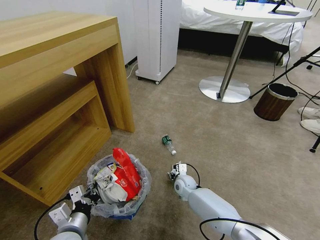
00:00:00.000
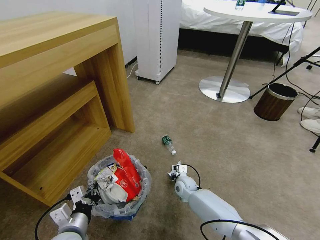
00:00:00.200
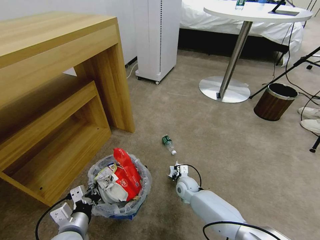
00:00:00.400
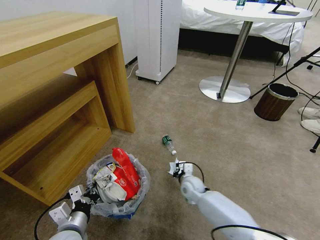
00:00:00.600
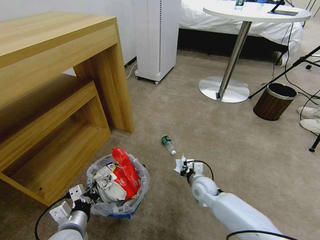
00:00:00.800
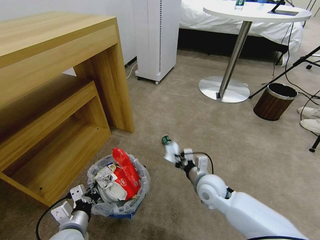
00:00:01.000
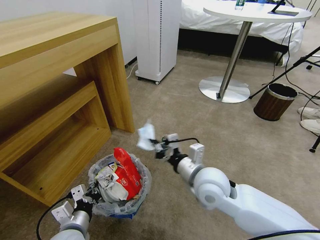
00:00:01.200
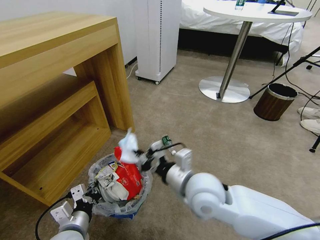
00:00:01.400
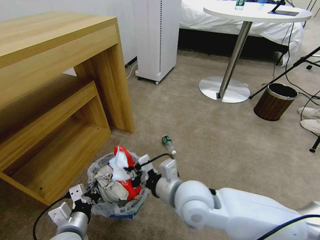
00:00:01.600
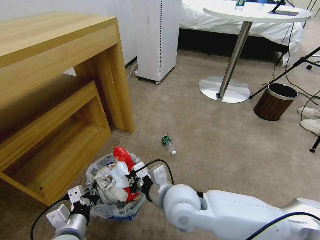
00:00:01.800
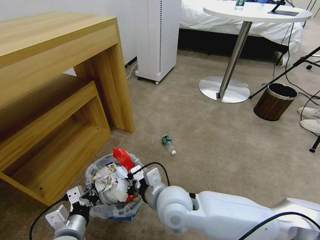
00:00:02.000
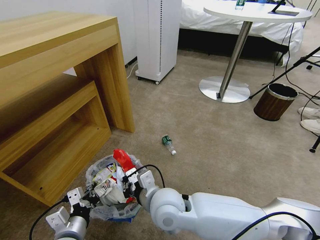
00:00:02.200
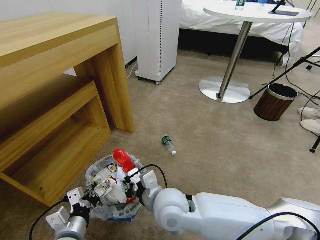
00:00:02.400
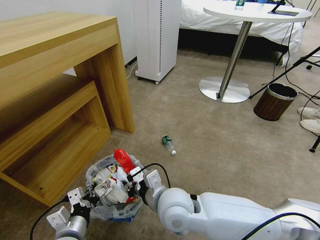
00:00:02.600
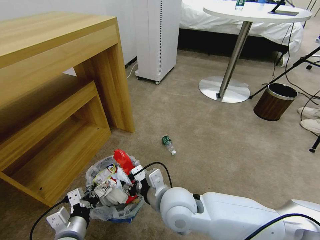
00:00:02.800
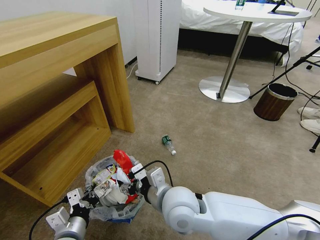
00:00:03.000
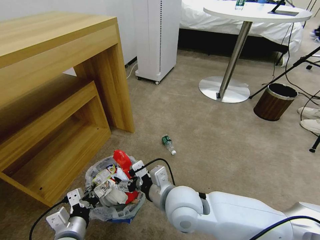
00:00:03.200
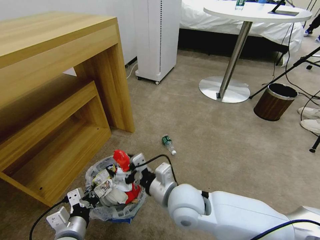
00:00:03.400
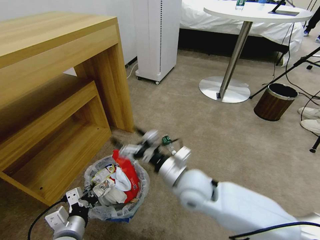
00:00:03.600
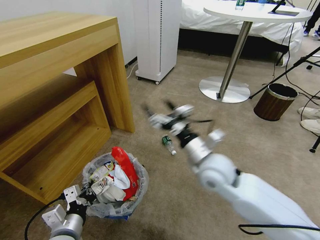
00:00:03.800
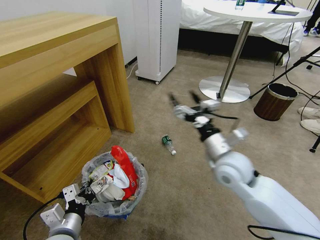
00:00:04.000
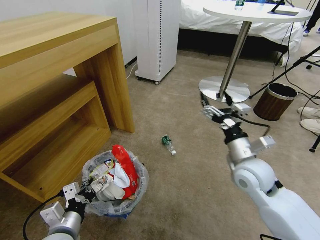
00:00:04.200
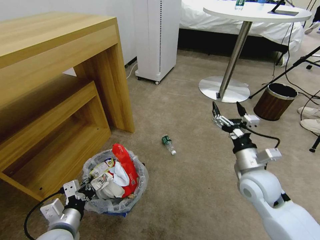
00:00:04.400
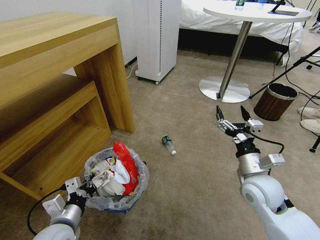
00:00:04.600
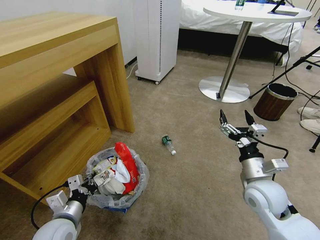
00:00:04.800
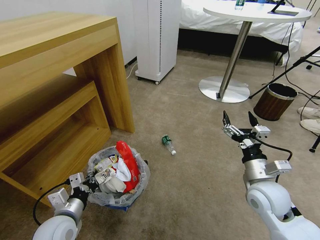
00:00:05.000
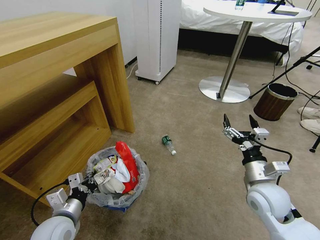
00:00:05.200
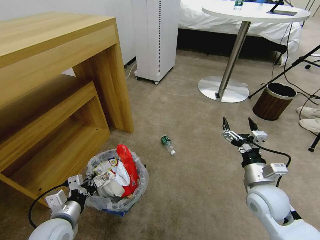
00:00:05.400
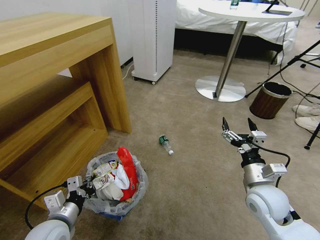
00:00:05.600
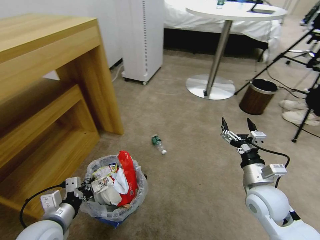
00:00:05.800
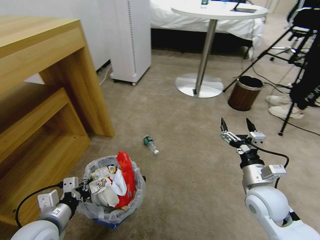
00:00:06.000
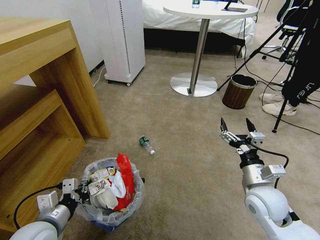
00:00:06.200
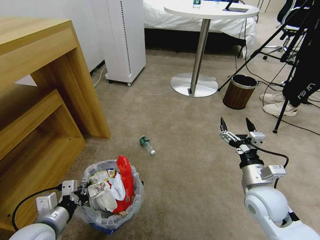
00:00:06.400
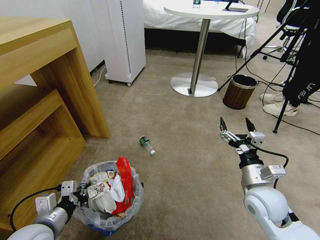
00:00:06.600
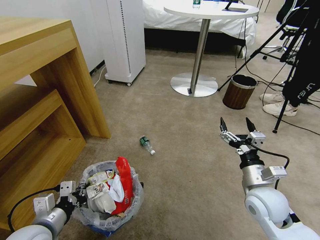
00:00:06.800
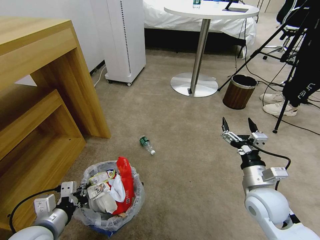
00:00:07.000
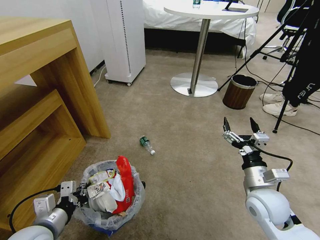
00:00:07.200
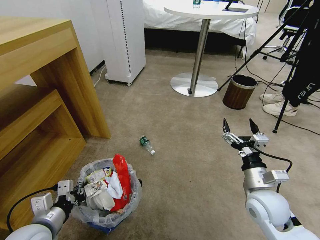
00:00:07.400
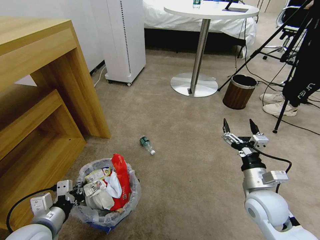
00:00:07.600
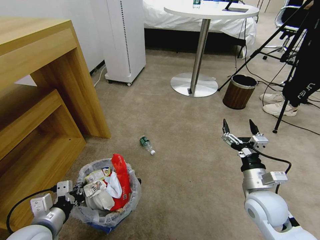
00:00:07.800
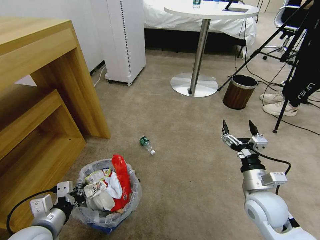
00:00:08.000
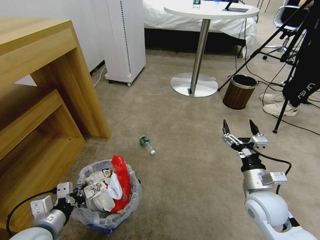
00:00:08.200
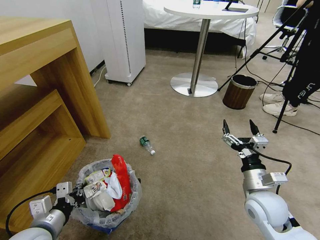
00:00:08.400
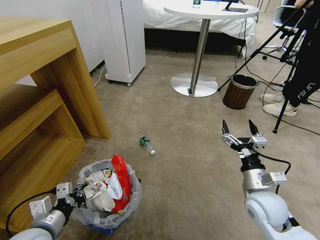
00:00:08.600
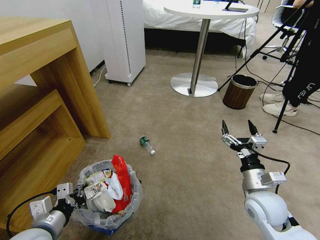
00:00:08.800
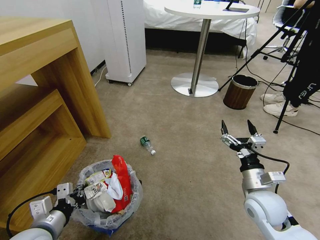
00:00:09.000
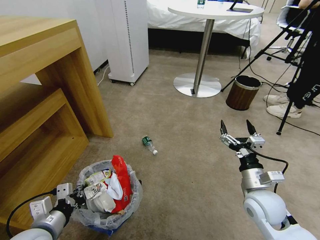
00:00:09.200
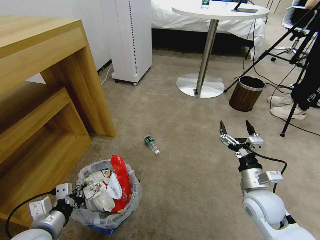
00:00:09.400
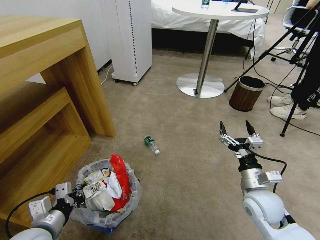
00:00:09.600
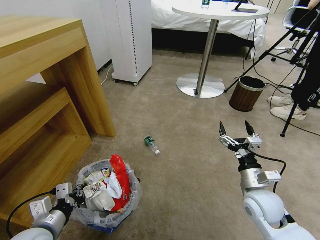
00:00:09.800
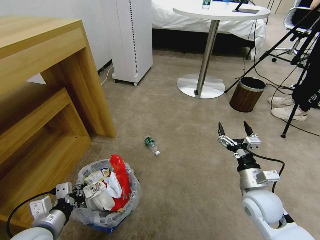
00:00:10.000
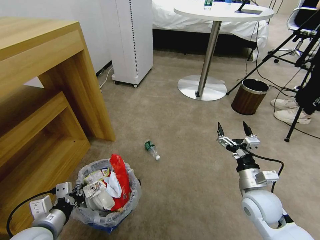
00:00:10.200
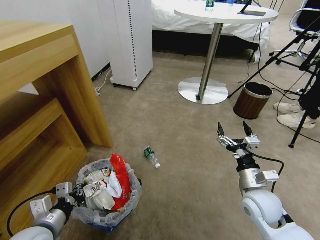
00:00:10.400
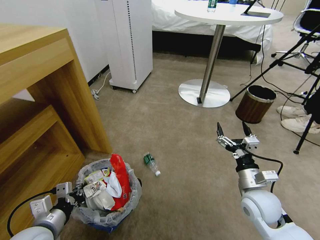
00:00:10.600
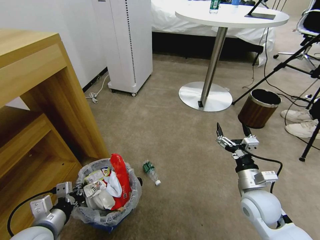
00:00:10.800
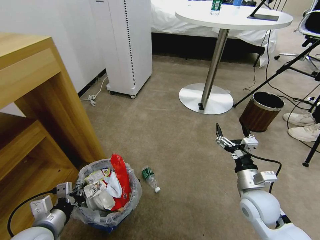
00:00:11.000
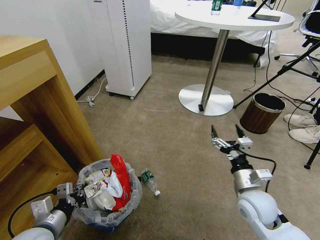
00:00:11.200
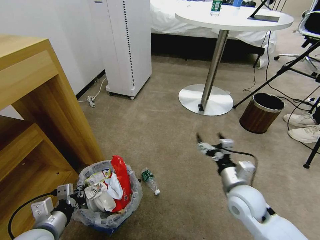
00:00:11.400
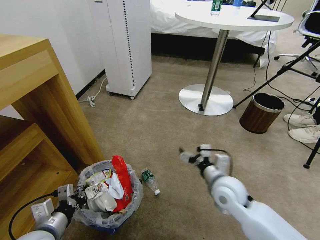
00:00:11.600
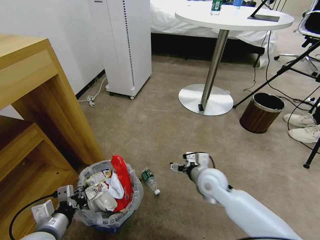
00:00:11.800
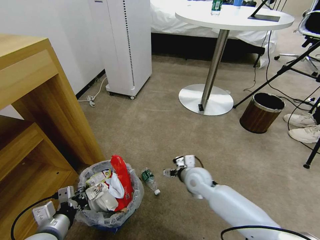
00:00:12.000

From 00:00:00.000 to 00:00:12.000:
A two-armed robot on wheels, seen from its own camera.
Task of the whole recording: Pick up the trash bin and place the garbage on the floor into it.
From 00:00:00.000 to 00:00:01.600: The right gripper shifts about 30 cm upward and backward, and closes.
From 00:00:01.600 to 00:00:03.000: The right gripper opens its fingers.
From 00:00:03.000 to 00:00:04.400: The right gripper is displaced to the right by roughly 25 cm.
From 00:00:07.600 to 00:00:09.000: Neither gripper changes place.
From 00:00:10.400 to 00:00:12.000: The right gripper goes roughly 20 cm to the left and forward.

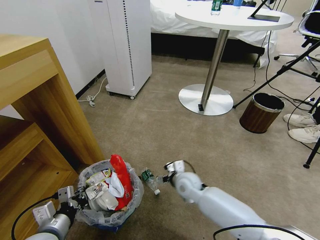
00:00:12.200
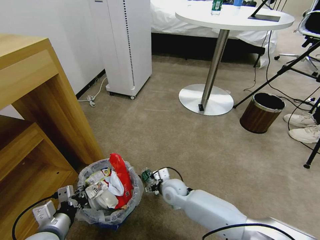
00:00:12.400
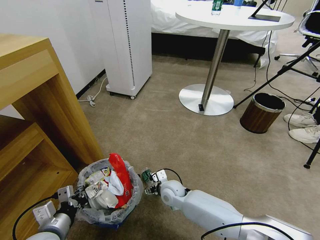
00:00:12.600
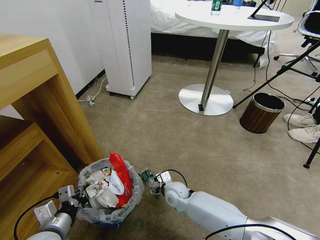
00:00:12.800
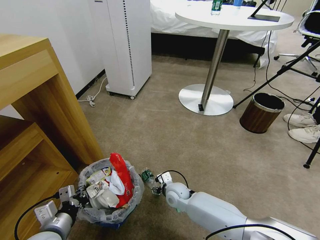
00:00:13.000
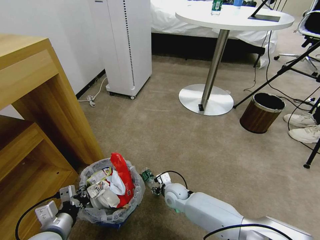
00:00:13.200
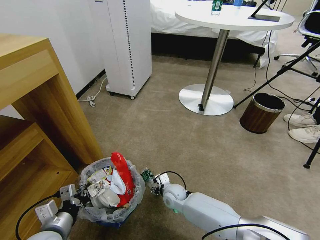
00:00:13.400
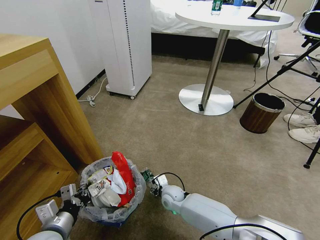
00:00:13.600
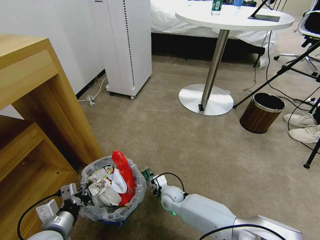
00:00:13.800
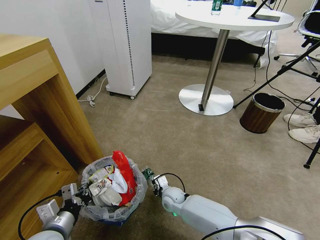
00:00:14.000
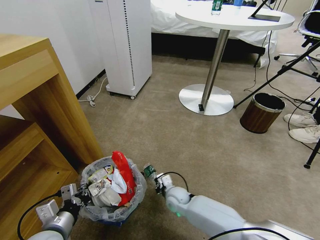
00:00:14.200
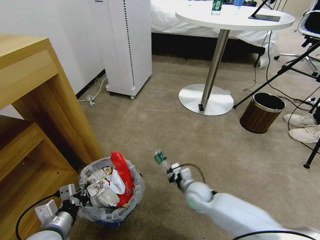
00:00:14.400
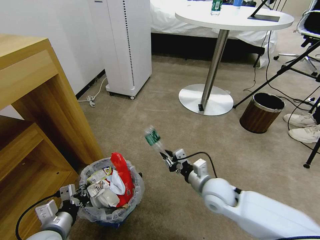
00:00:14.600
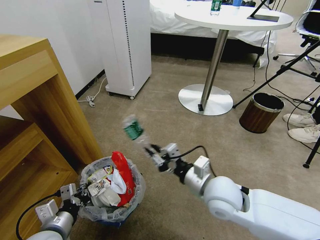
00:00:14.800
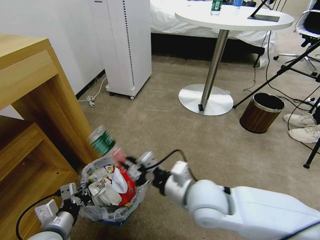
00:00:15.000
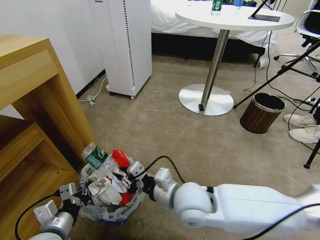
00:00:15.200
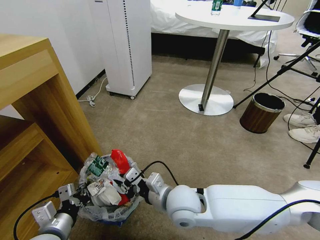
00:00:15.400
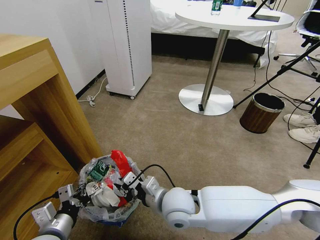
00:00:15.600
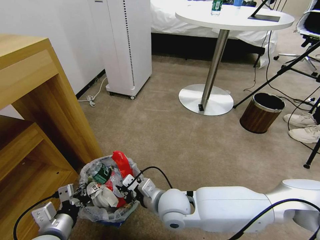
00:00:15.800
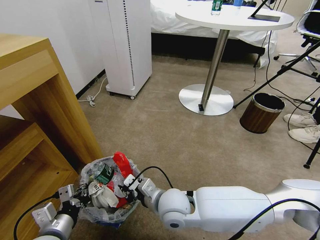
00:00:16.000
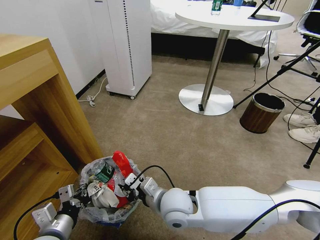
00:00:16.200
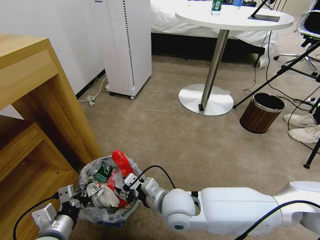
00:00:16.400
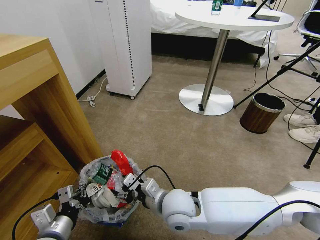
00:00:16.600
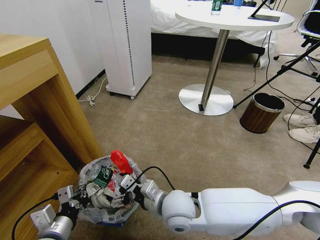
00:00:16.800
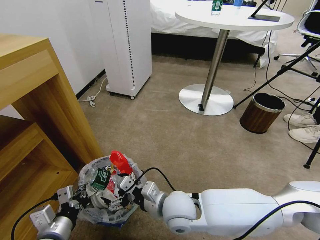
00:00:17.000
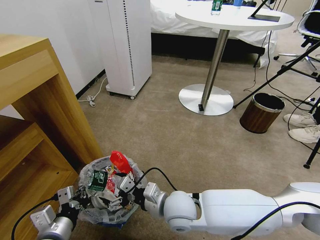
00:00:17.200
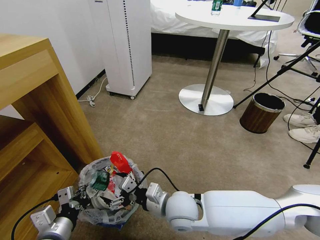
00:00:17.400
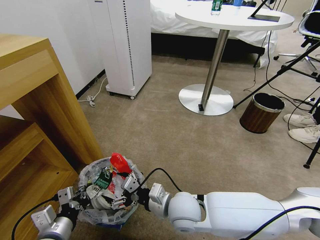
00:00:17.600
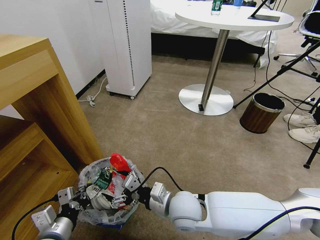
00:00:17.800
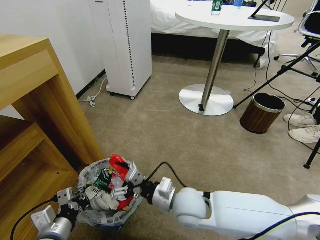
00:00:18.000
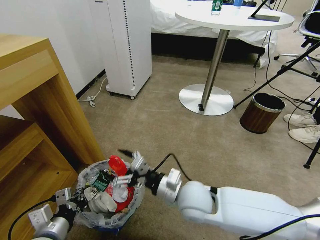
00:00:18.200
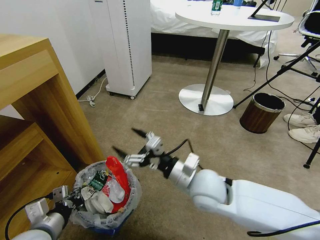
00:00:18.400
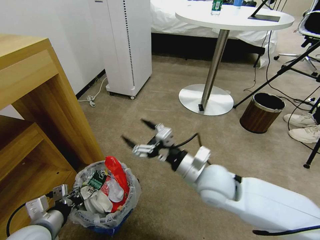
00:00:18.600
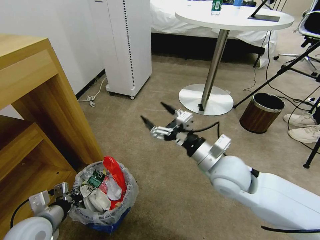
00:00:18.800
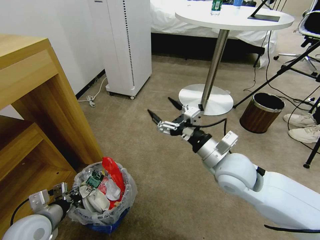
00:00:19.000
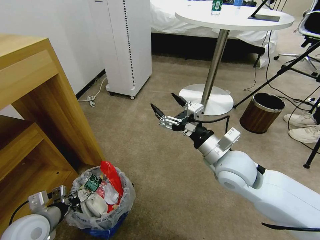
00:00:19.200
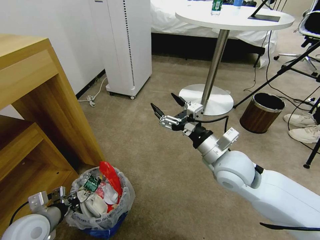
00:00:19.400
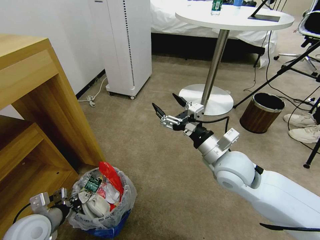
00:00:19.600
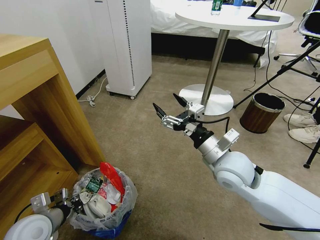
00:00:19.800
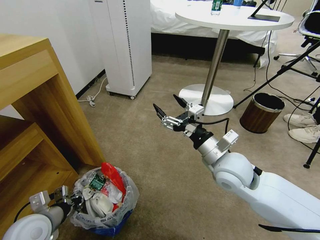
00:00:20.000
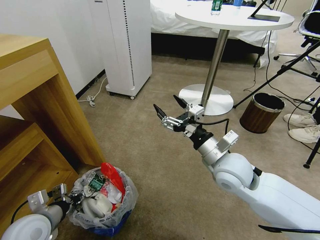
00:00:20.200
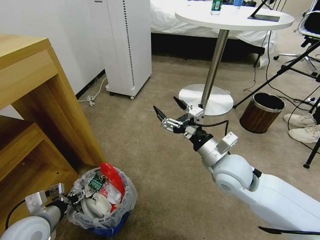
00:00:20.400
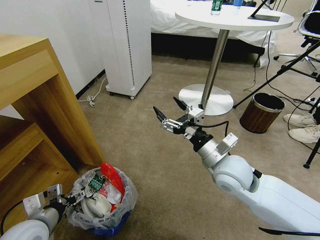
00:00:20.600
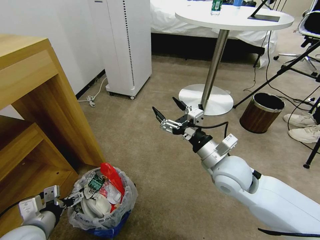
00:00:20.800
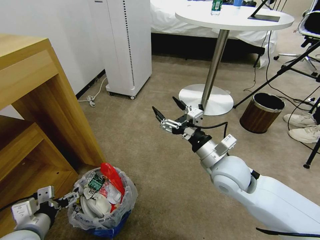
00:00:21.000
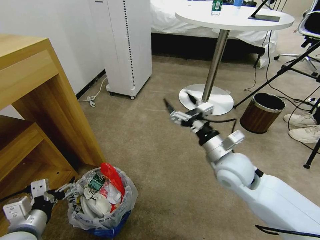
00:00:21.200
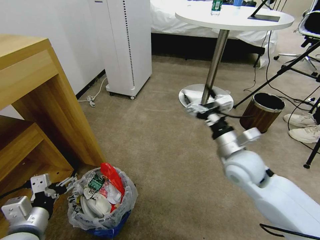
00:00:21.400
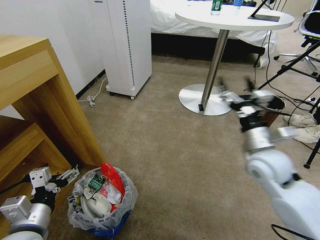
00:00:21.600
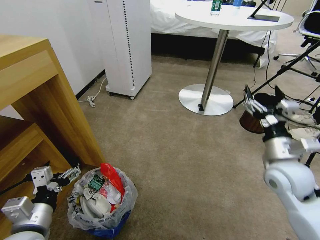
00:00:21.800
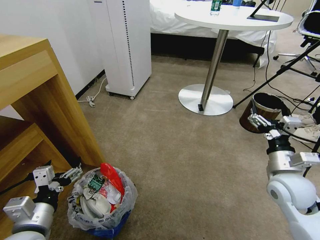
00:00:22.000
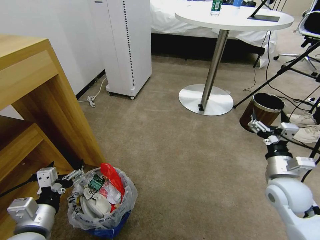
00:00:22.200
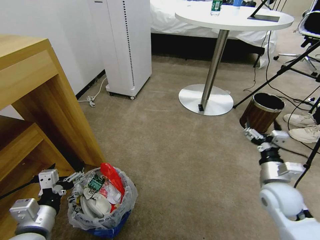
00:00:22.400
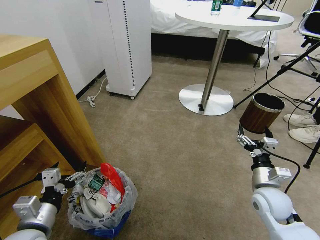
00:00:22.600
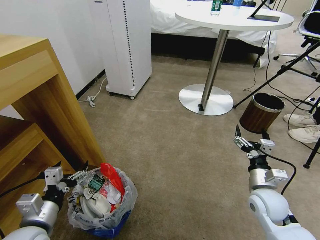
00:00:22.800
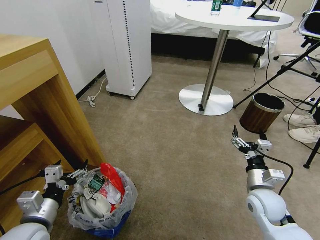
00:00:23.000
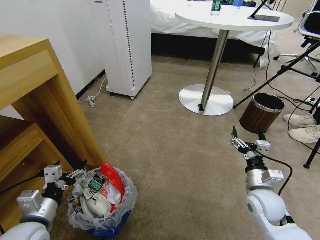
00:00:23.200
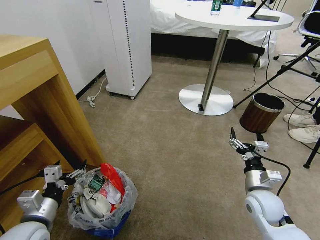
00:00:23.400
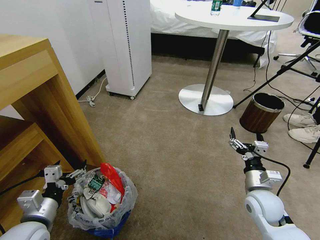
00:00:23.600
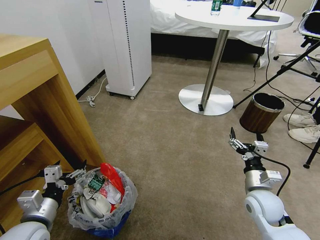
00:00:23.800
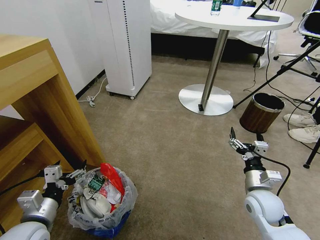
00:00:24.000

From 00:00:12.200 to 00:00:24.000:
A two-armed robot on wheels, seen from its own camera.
Task of the whole recording: Pick up the trash bin and place the garbage on the floor into it.
From 00:00:12.200 to 00:00:13.600: The right gripper travels downward and to the left by approximately 10 cm.
From 00:00:13.600 to 00:00:15.200: The right gripper moves upward and backward, some 30 cm, and closes up.
From 00:00:15.200 to 00:00:16.600: The right gripper changes place by some 5 cm, and opens.
From 00:00:16.600 to 00:00:18.200: The right gripper shifts by some 5 cm.
From 00:00:18.200 to 00:00:19.600: The left gripper shifts approximately 10 cm forward and to the left; the right gripper shifts approximately 10 cm to the right and upward.
From 00:00:19.600 to 00:00:21.000: The left gripper changes place by approximately 5 cm, and opens up.
From 00:00:21.000 to 00:00:22.600: The right gripper travels to the right and downward by about 20 cm.
From 00:00:22.600 to 00:00:24.000: There are only small adjustments of the grippers.
